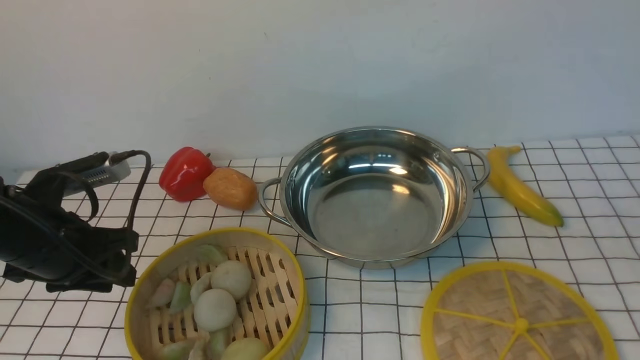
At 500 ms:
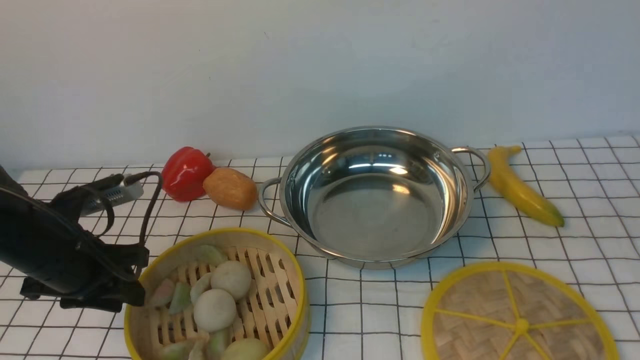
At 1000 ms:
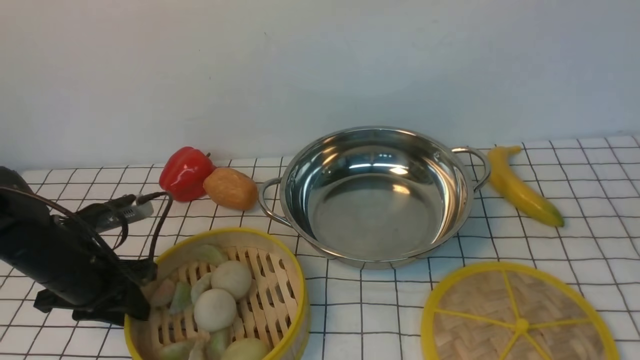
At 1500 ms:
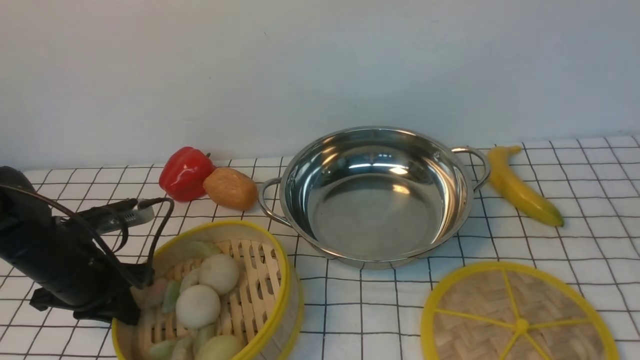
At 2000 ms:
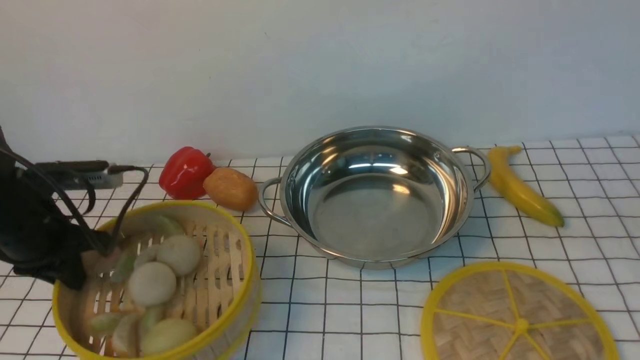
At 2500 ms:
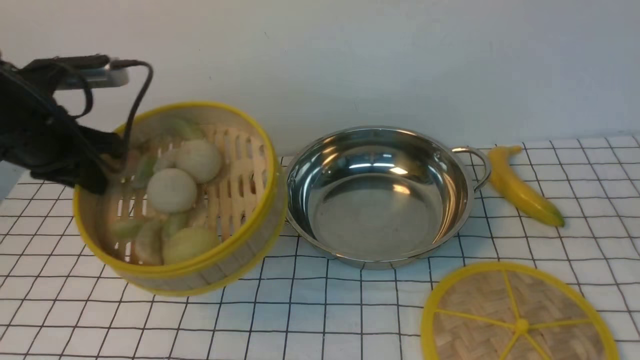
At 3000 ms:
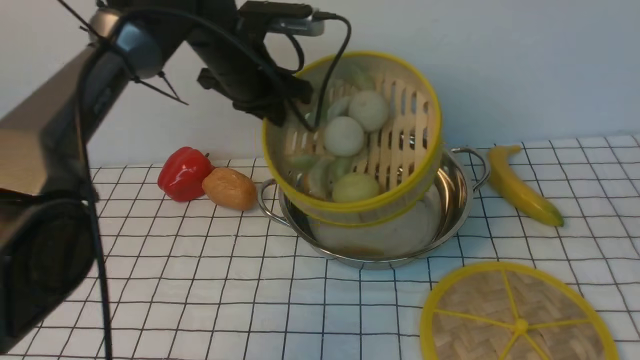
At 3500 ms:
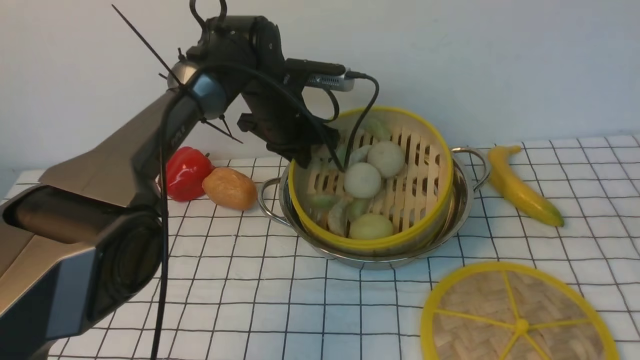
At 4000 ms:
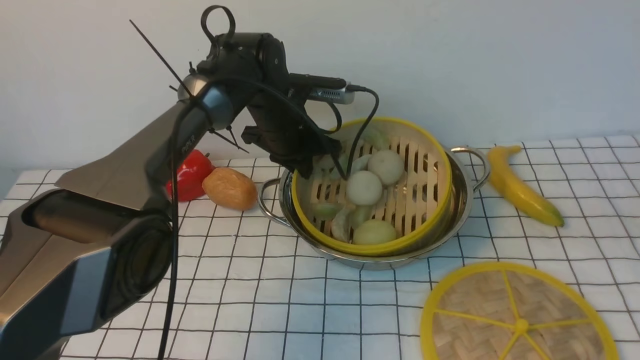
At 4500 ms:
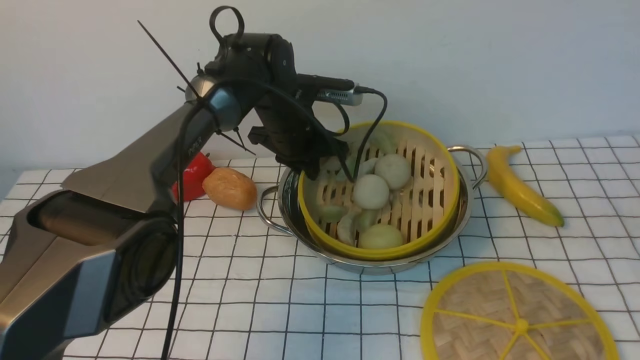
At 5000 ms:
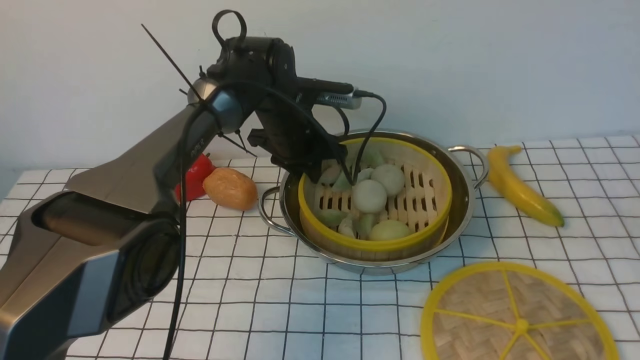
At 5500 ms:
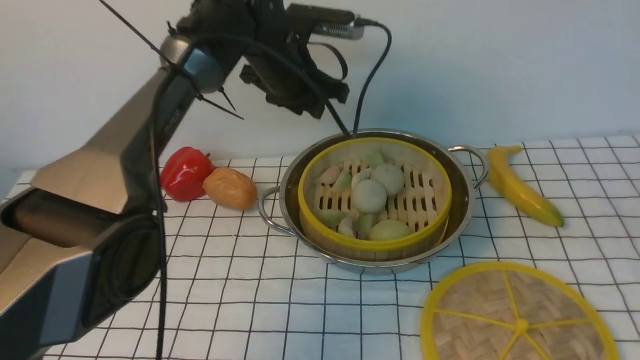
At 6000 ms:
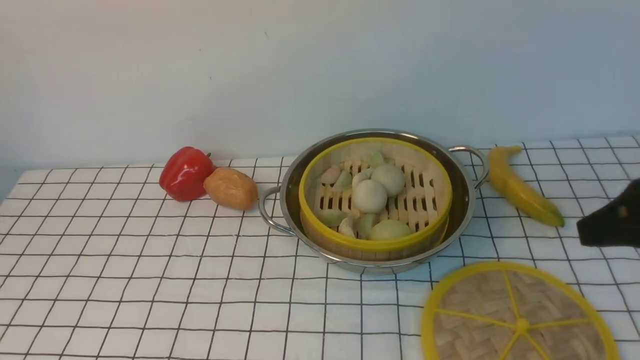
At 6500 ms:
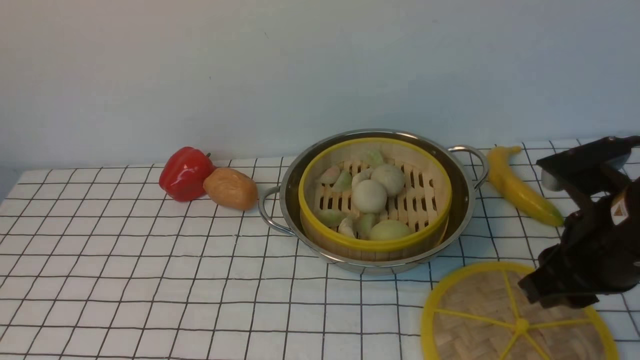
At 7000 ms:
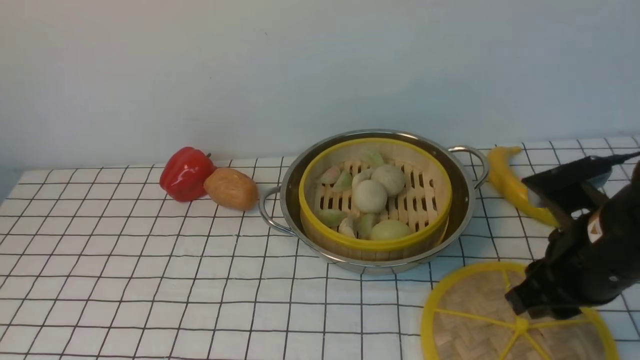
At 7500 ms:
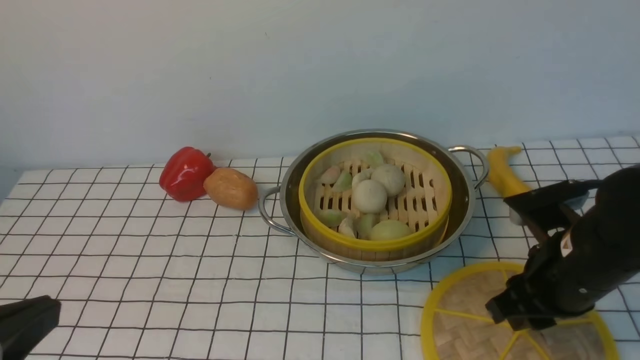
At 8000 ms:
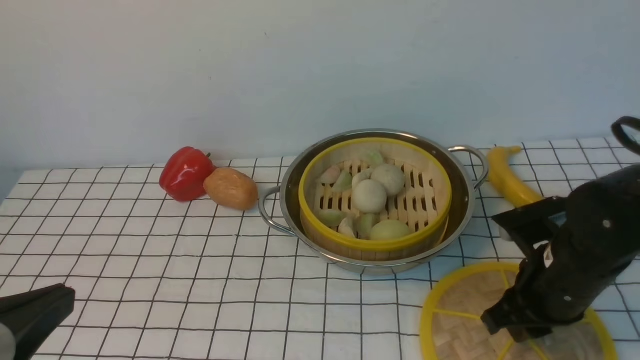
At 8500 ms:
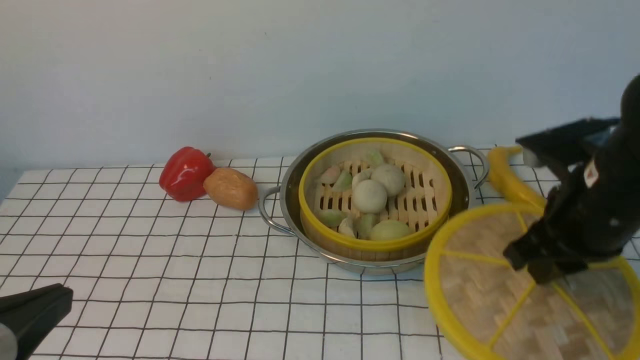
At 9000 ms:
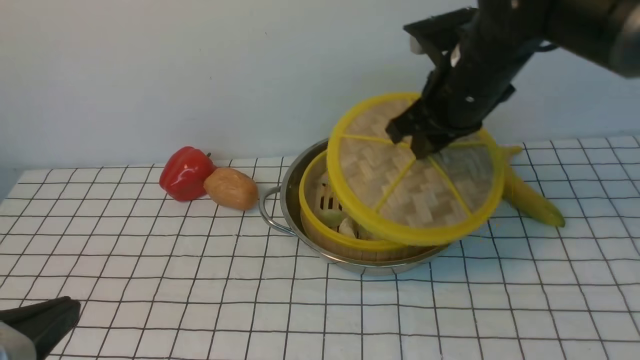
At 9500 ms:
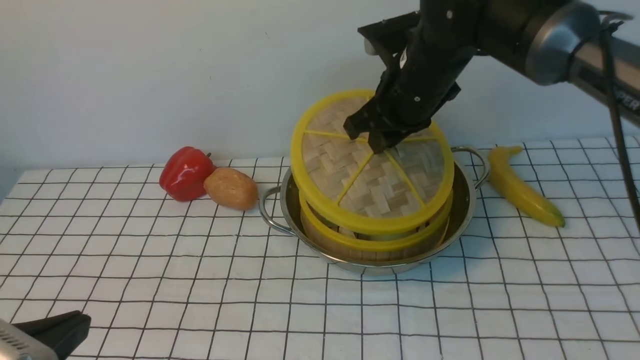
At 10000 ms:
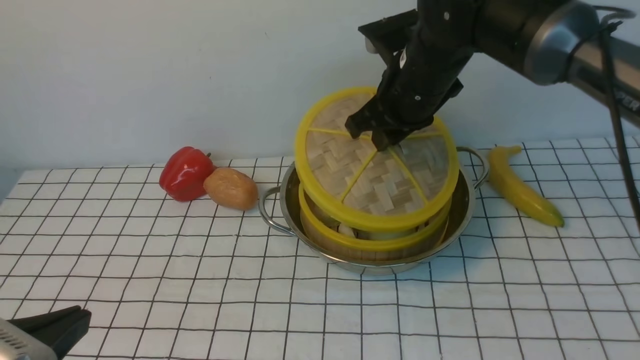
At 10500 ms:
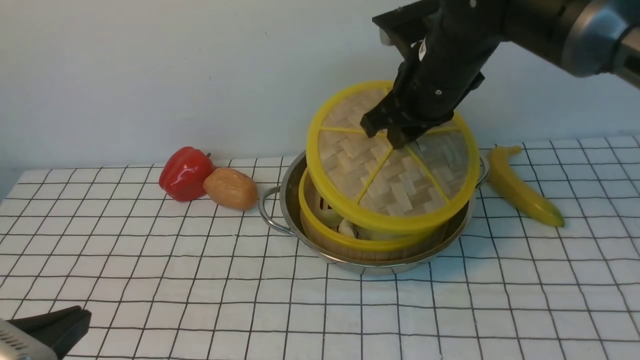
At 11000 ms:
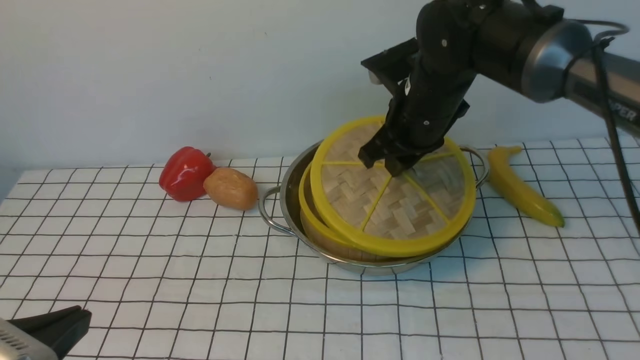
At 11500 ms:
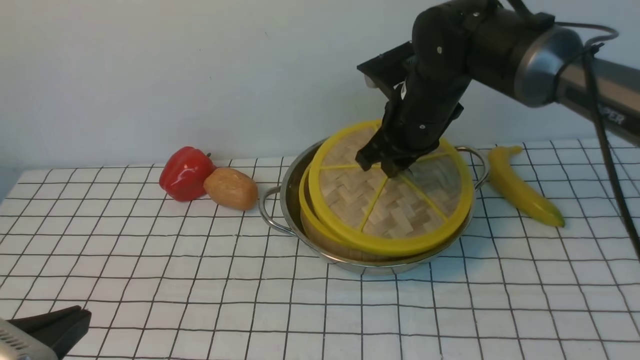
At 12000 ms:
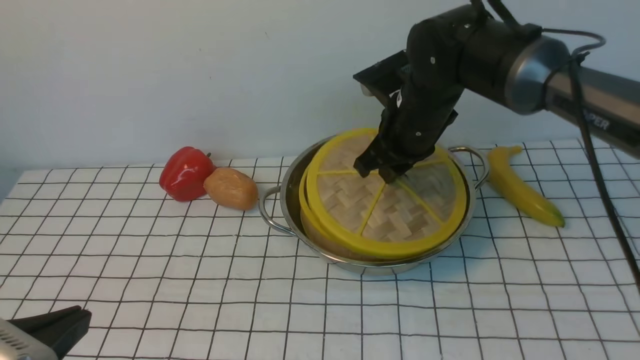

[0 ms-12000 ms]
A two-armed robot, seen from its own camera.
Task of the whole recording: place the steamer in the pot on the white tablecloth, and put the lid on the steamer.
Step, 0 ms to 2000 ms: use the left arm to lift the steamer closest to it.
Step, 2500 ms to 5000 ms: use the left arm to put the steamer into the iron steamer pot in the middle.
Step, 5500 ms to 8000 ms: use the right arm to lift the lid of the steamer.
0 ms to 2000 ms: The right gripper moves forward and upward, about 10 cm; the left gripper closes up.
2000 ms to 4000 ms: The left gripper is displaced to the right and forward by some 30 cm.
4000 ms to 6000 ms: The right gripper is displaced forward by some 5 cm. Meanwhile the left gripper shifts about 35 cm upward and backward, and opens, then closes again.
6000 ms to 8000 ms: The left gripper heads backward and downward, covering approximately 35 cm. The right gripper goes some 15 cm downward and forward.
8000 ms to 10000 ms: The right gripper is displaced forward, to the left and upward by roughly 25 cm.
10000 ms to 12000 ms: The grippers make only small movements.

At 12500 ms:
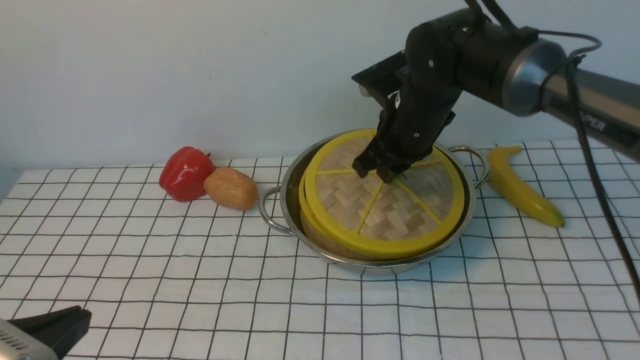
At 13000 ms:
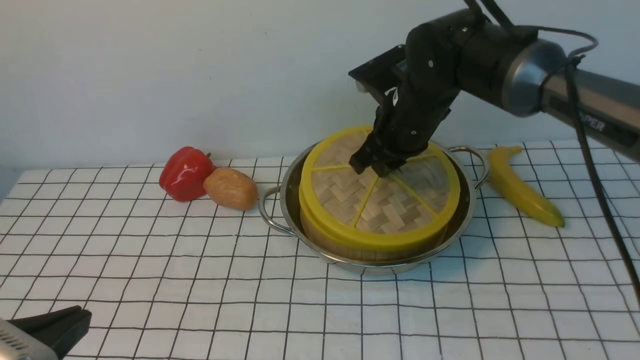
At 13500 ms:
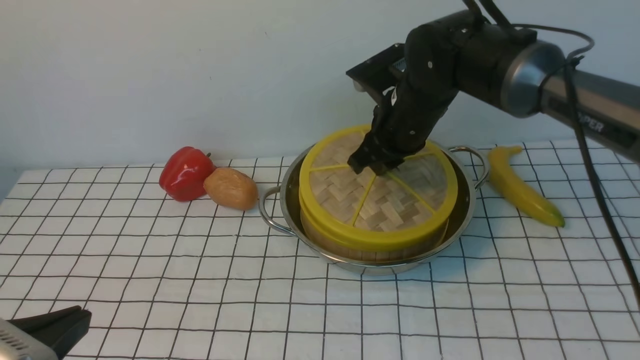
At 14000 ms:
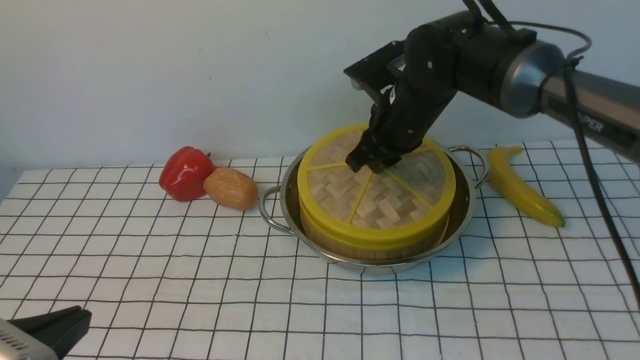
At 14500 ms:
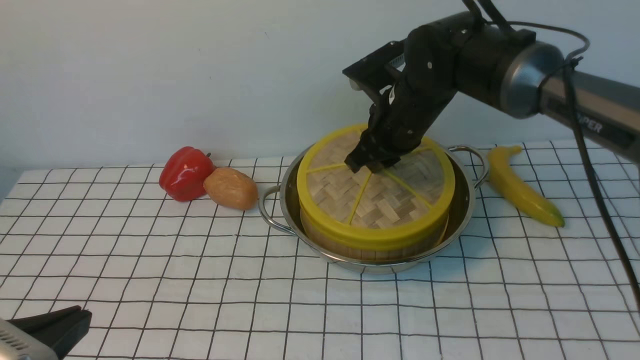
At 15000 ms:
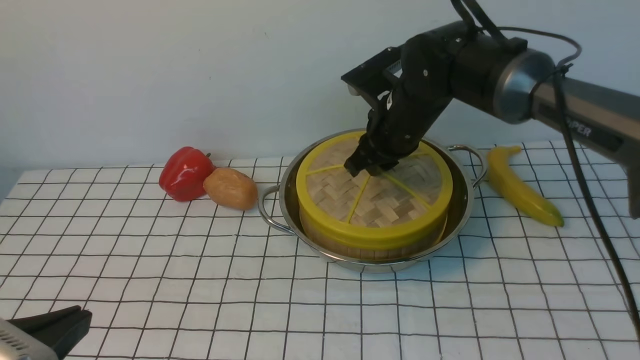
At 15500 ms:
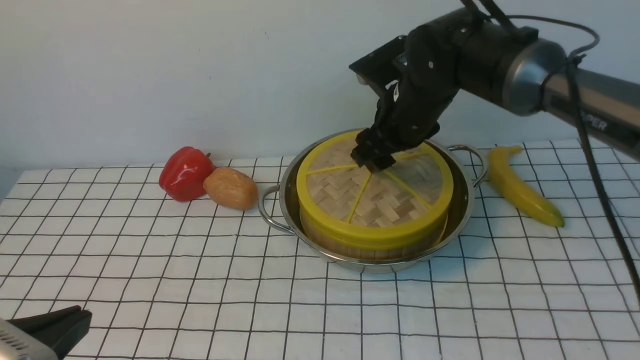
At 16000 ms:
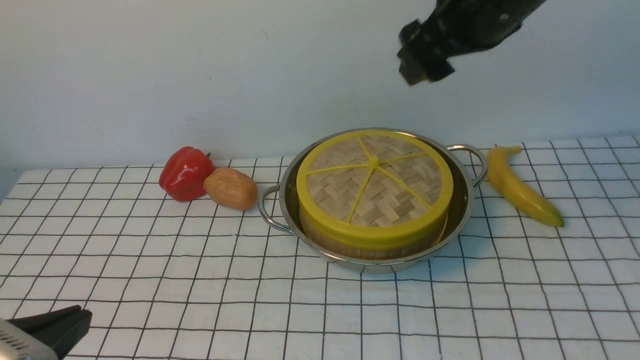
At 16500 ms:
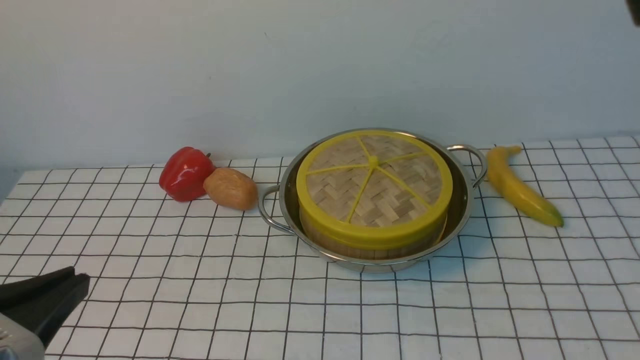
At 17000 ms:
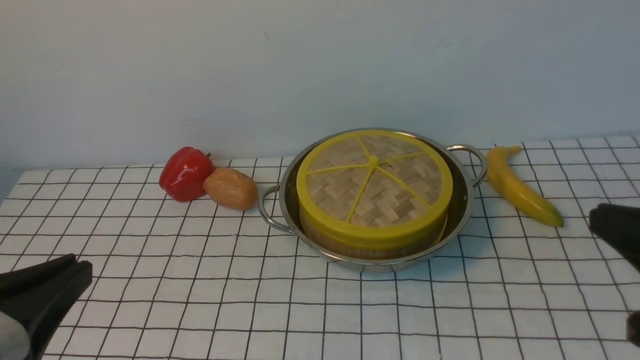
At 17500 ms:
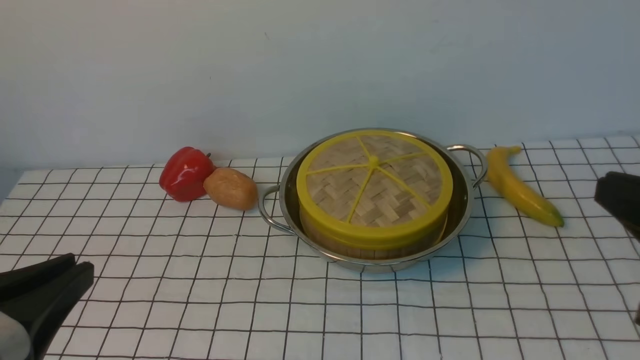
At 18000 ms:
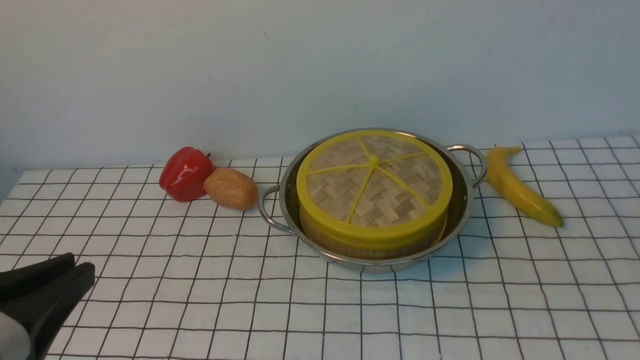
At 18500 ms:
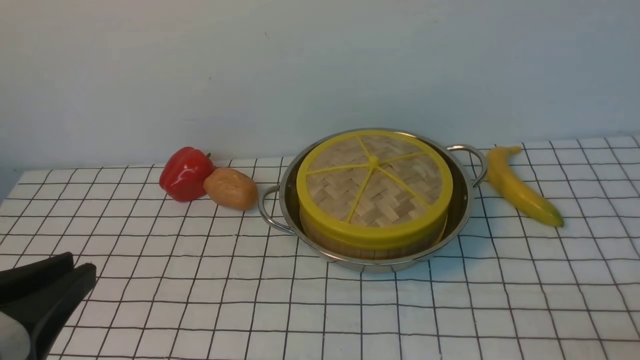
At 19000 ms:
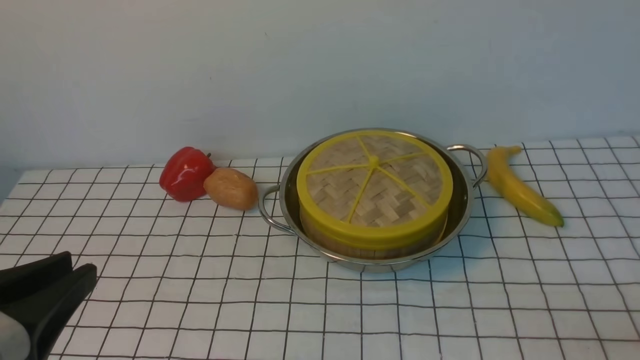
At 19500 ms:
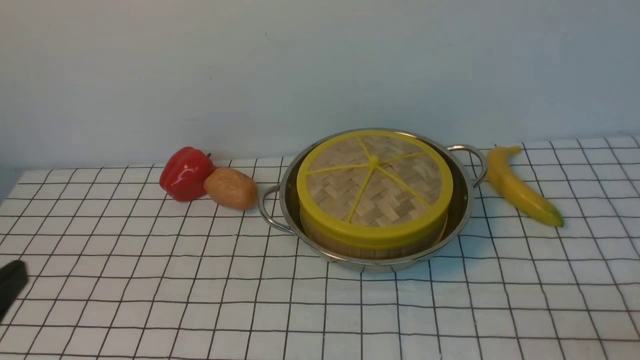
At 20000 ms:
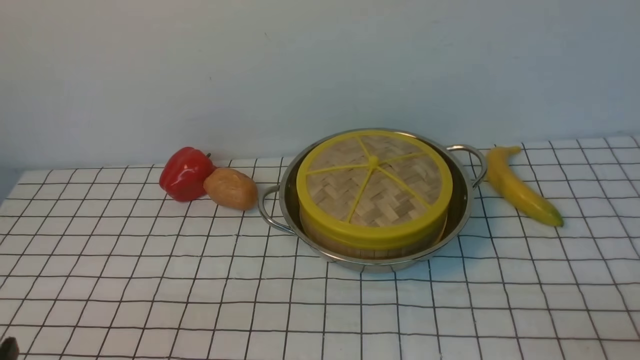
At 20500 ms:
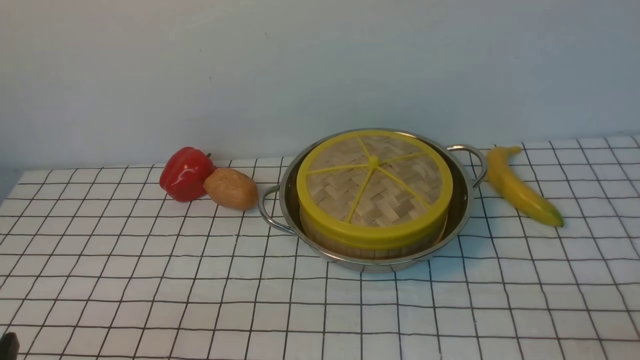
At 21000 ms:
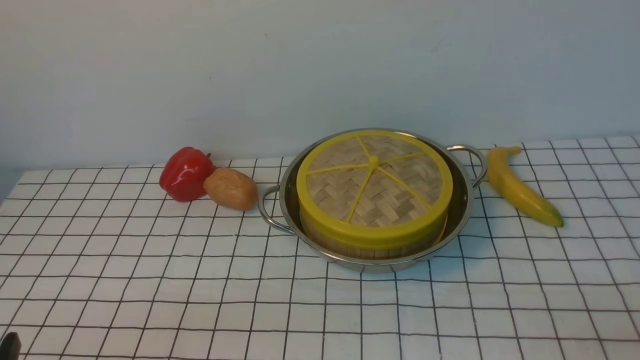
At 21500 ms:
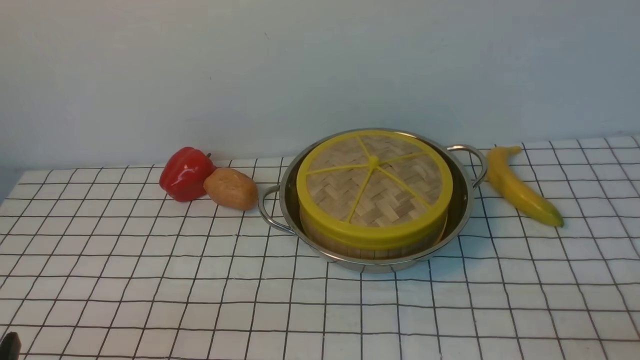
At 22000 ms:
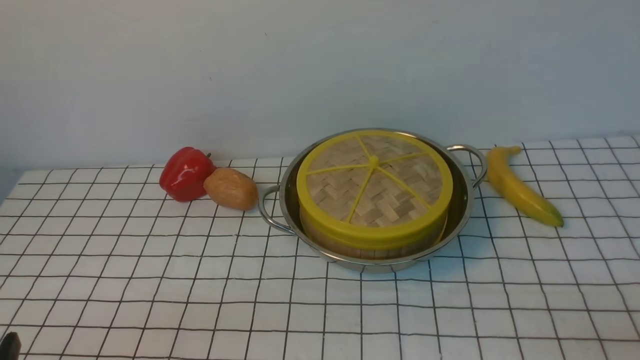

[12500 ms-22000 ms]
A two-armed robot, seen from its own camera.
Task of the whole recording: place the steamer in the pot on the white tablecloth, and put the lid on the steamer.
Step, 12500 ms to 15500 ms: use the right arm to place the steamer lid on the steamer.
12500 ms to 14500 ms: The grippers stay close to where they were, moving slightly.
14500 ms to 16500 ms: The right gripper travels upward, backward and to the right by approximately 35 cm, and opens and closes again.
18000 ms to 20000 ms: The left gripper shifts about 10 cm downward, and opens.
